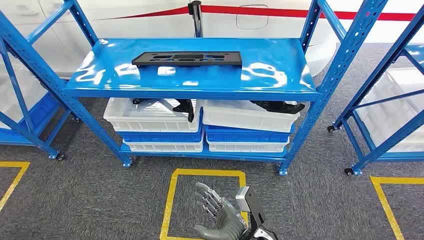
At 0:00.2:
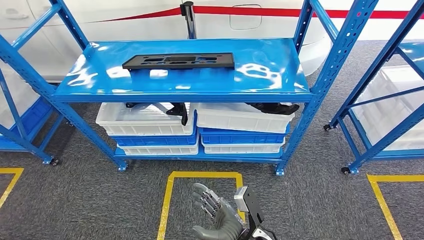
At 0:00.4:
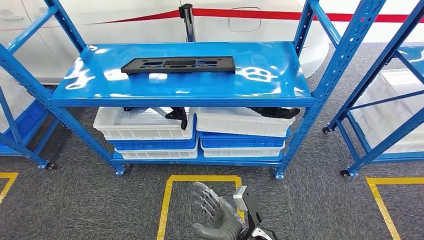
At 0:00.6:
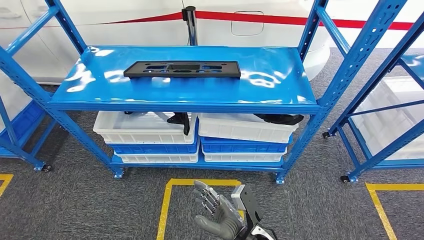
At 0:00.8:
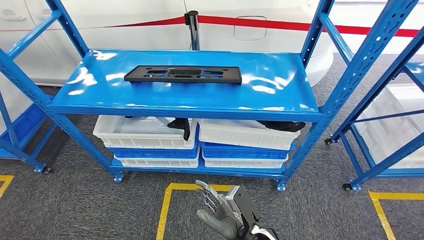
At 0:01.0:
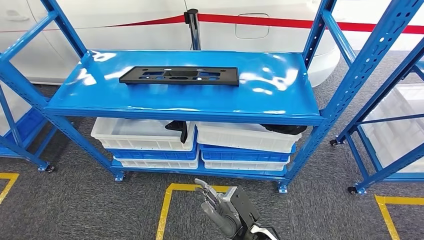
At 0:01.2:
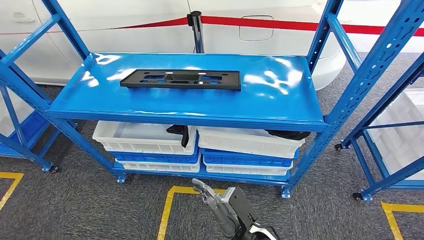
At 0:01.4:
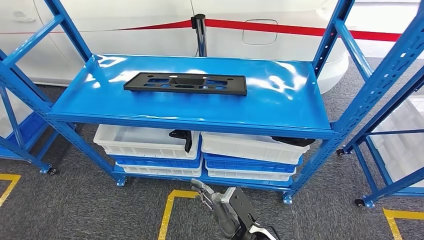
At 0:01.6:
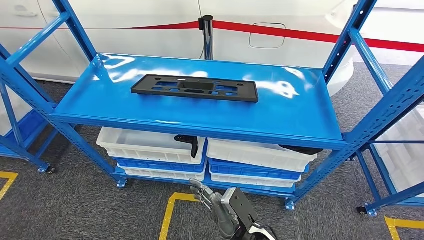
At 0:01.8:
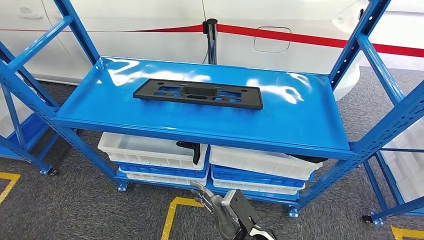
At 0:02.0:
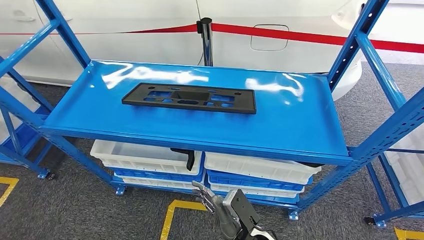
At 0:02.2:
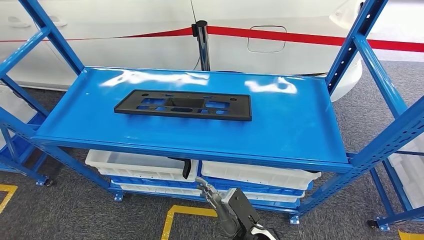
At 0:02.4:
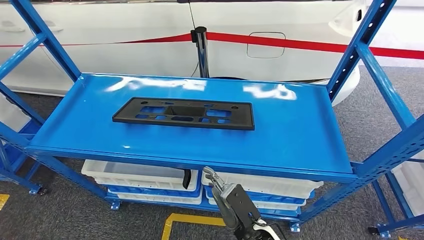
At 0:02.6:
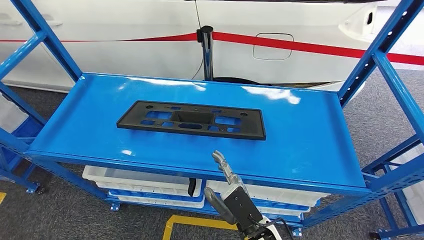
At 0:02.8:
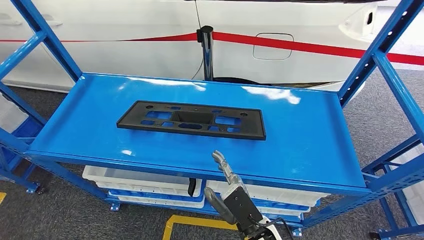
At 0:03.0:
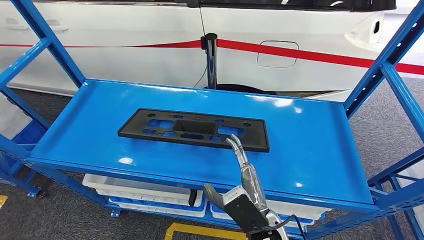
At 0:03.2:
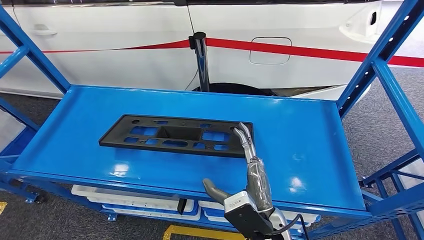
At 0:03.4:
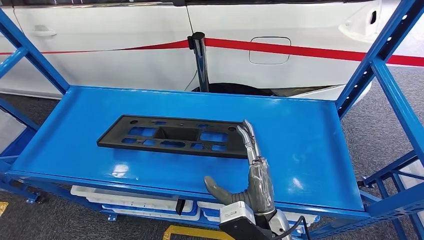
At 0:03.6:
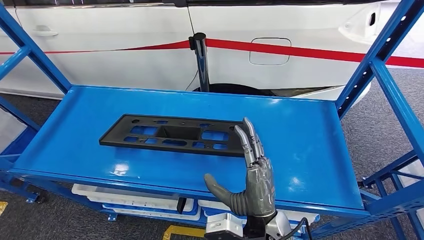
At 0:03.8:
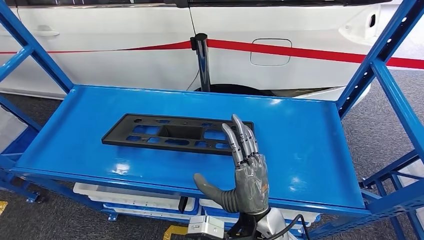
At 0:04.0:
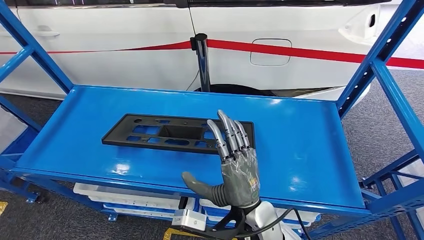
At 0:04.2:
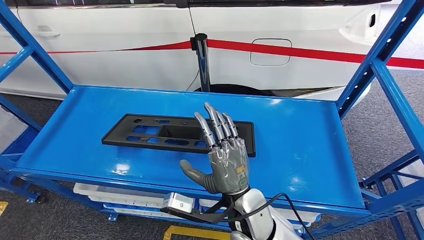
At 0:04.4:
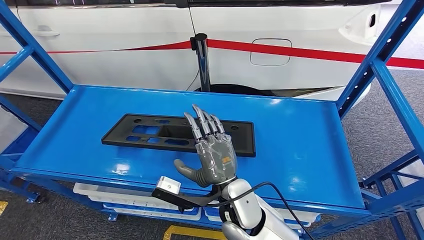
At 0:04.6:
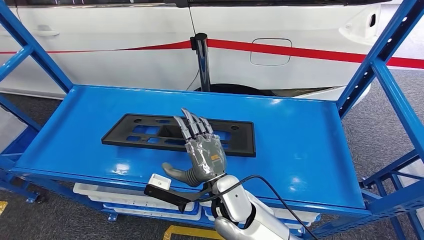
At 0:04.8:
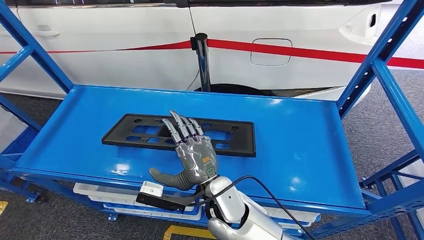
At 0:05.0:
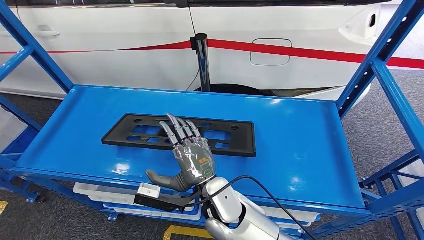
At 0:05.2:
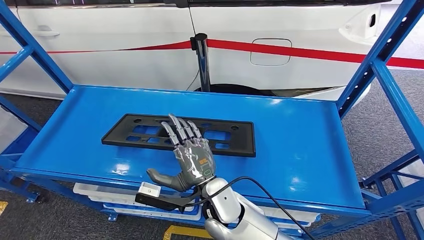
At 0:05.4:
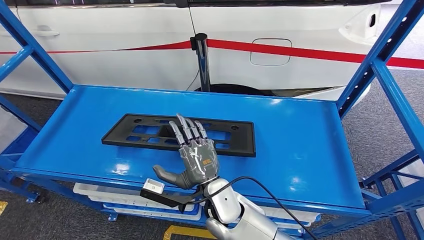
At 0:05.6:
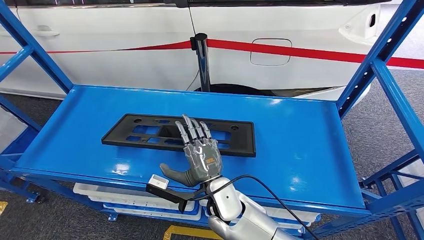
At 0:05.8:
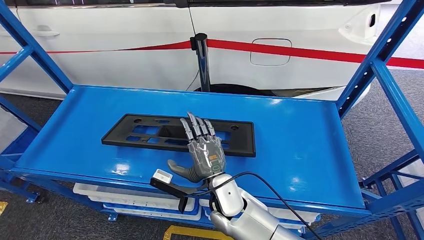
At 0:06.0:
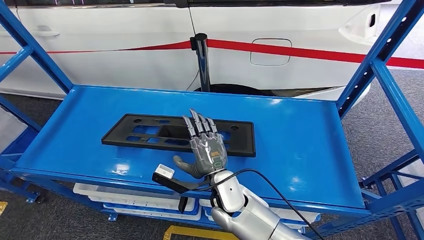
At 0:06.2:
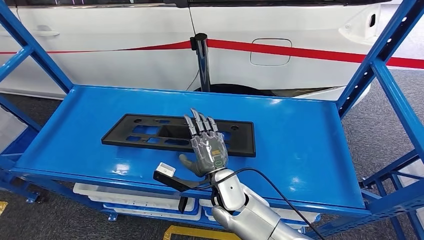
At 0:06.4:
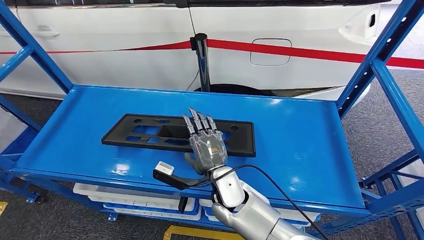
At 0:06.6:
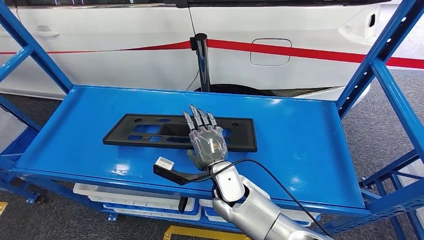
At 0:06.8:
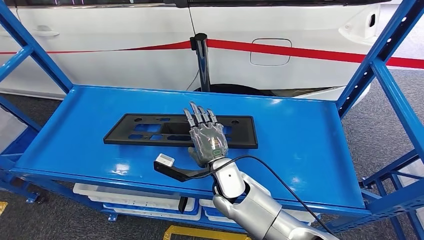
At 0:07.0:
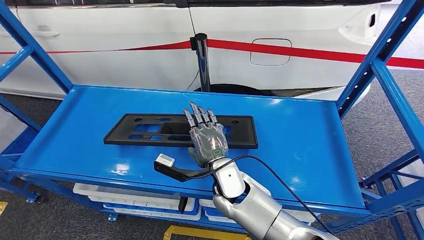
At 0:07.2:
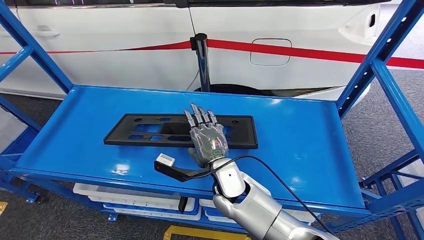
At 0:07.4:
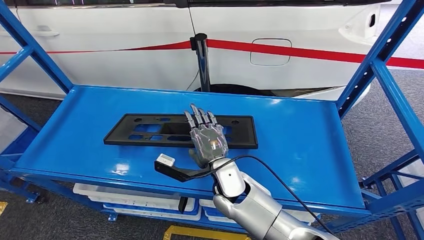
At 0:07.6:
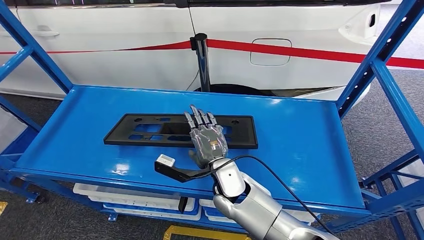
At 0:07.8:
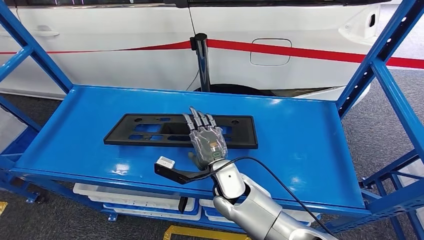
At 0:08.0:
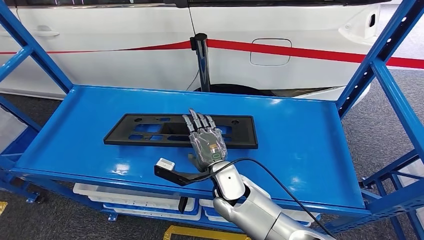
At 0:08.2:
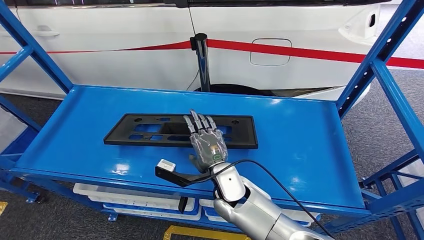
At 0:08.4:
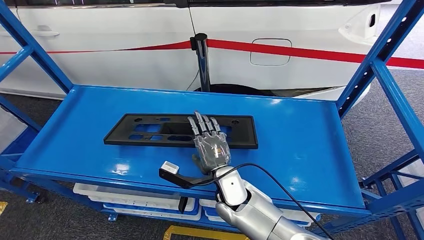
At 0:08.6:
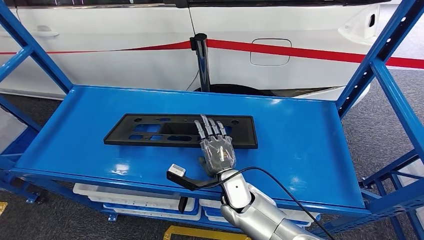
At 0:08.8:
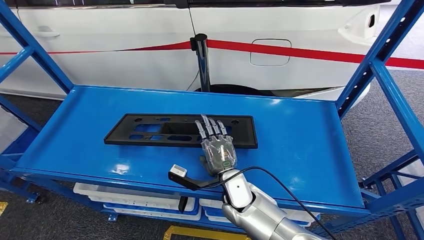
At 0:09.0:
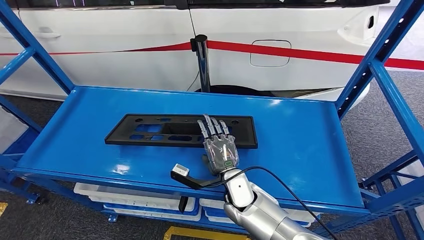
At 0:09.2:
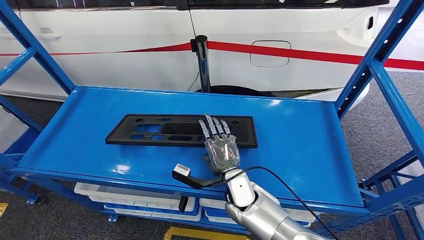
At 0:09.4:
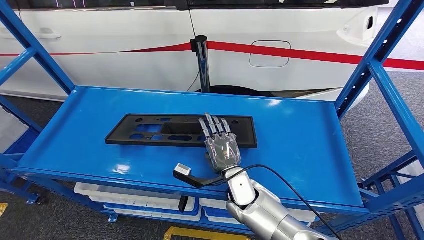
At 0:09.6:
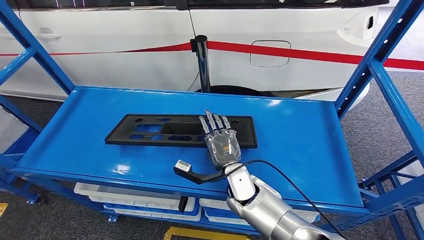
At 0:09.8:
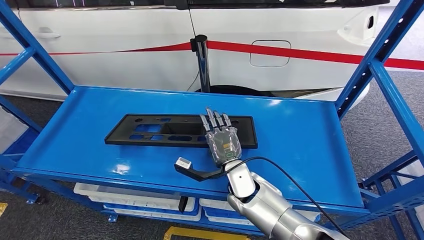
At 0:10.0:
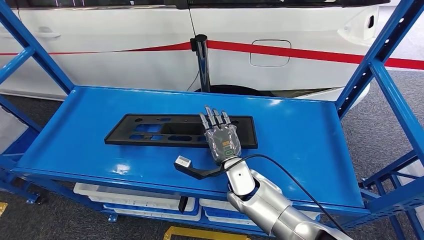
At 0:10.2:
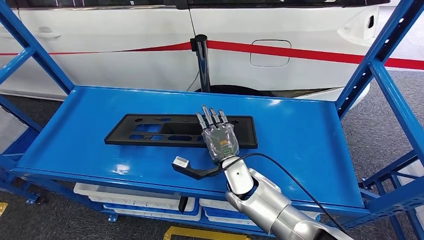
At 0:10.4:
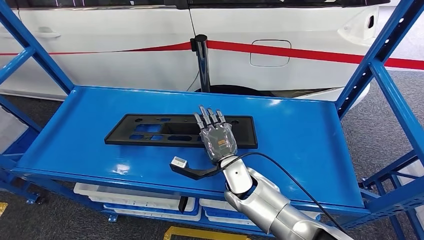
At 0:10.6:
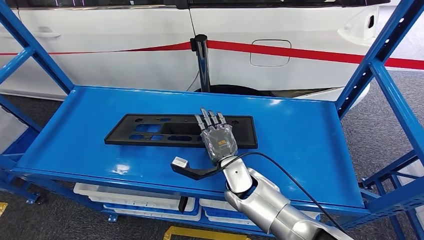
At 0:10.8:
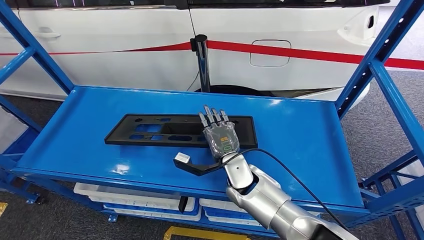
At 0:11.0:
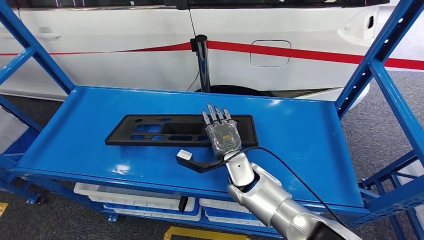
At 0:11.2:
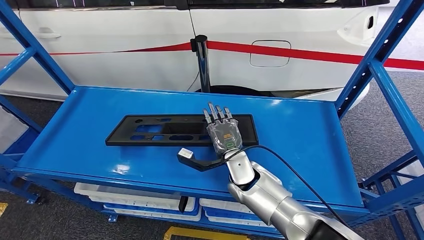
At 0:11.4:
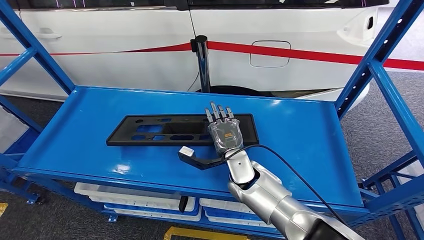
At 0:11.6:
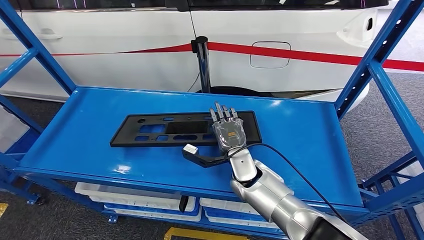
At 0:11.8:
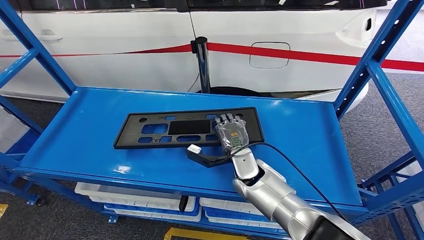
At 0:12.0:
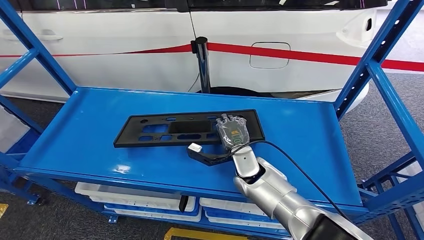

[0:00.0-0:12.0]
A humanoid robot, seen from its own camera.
0:04.4 to 0:06.0: The right hand changes place by some 5 cm.
0:06.0 to 0:07.6: The hands stay close to where they were, moving slightly.
0:07.6 to 0:09.0: The right hand moves downward, roughly 5 cm.
0:09.0 to 0:10.4: The hands make only small movements.

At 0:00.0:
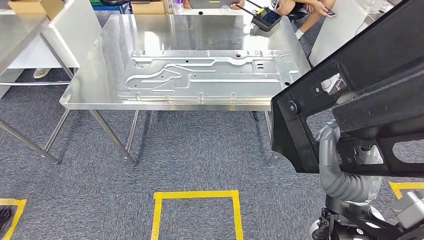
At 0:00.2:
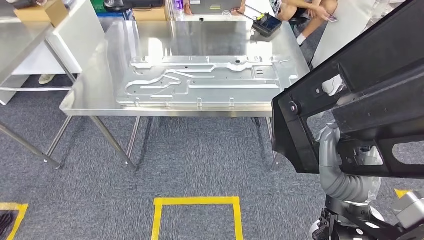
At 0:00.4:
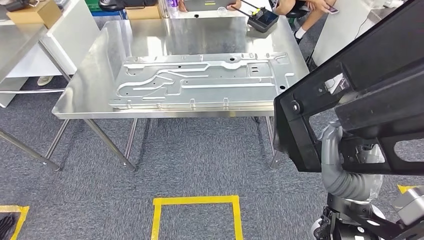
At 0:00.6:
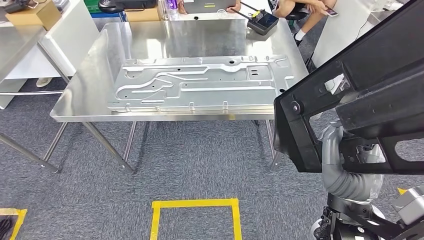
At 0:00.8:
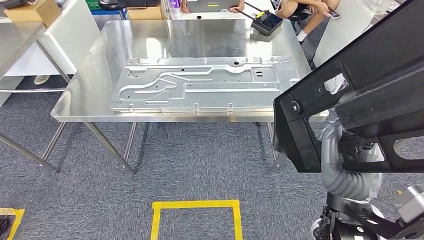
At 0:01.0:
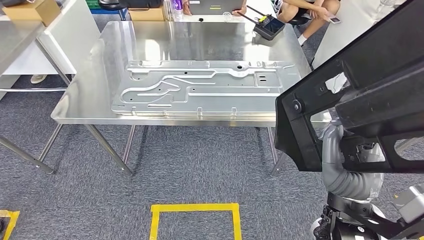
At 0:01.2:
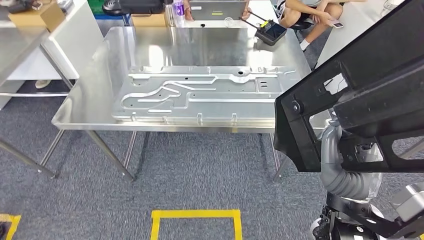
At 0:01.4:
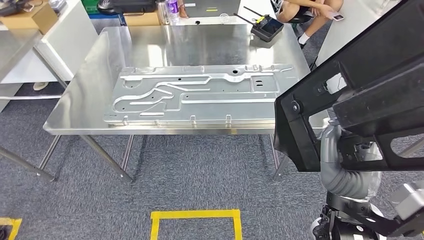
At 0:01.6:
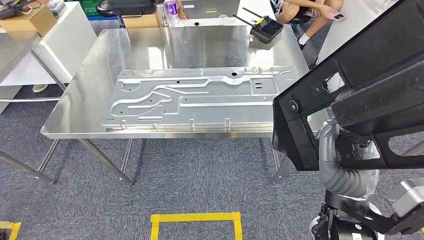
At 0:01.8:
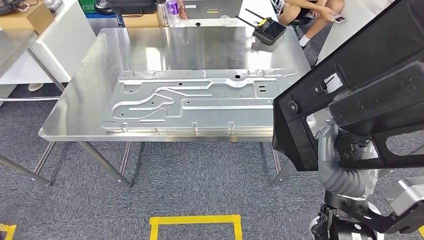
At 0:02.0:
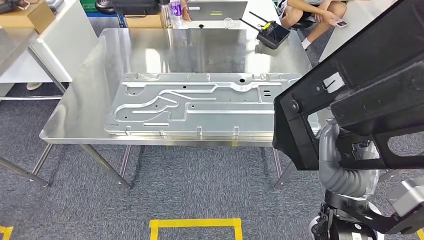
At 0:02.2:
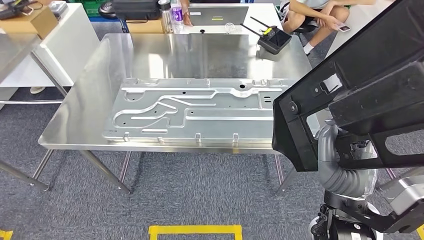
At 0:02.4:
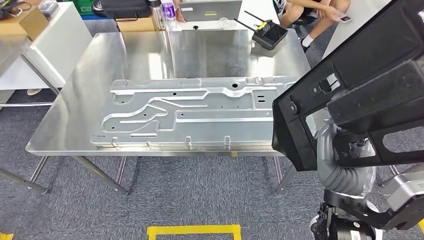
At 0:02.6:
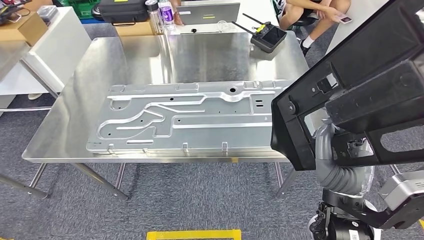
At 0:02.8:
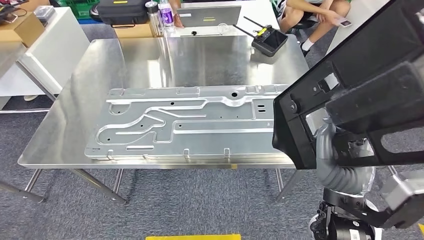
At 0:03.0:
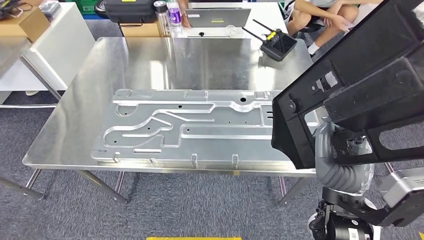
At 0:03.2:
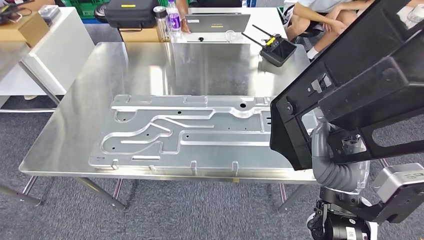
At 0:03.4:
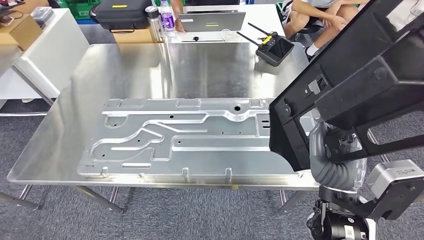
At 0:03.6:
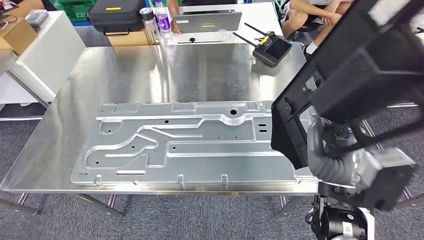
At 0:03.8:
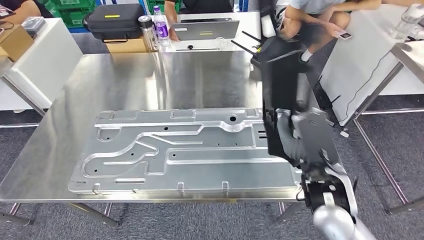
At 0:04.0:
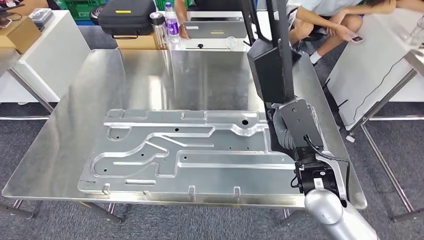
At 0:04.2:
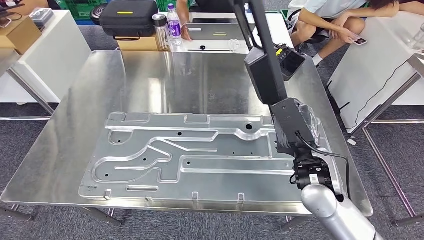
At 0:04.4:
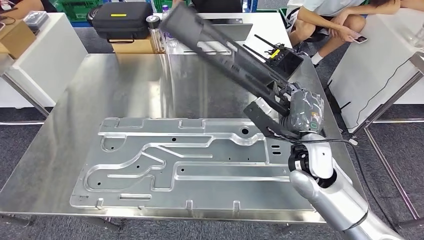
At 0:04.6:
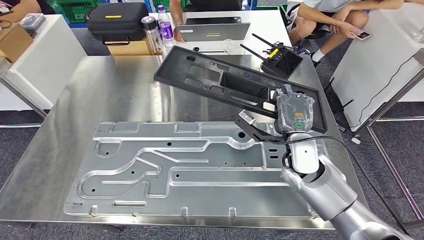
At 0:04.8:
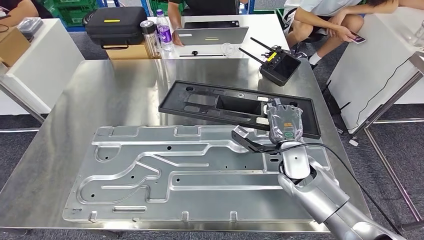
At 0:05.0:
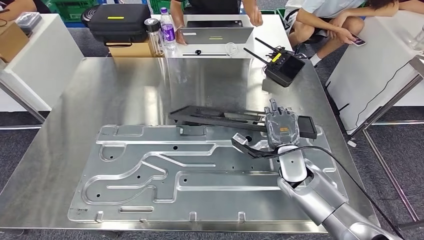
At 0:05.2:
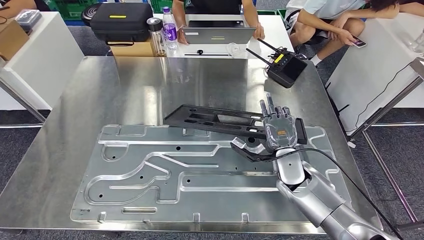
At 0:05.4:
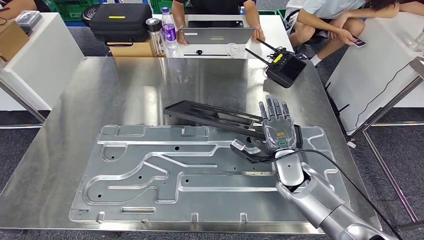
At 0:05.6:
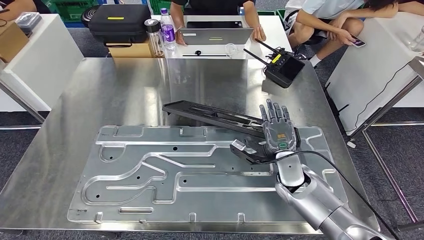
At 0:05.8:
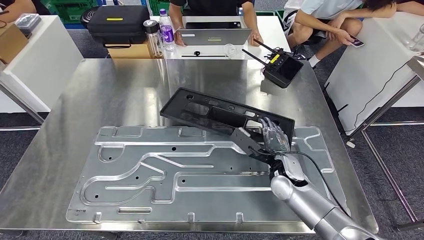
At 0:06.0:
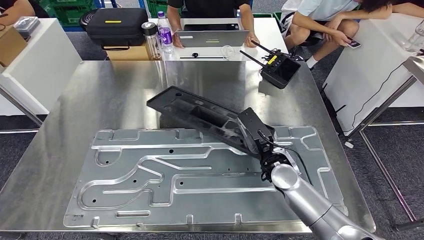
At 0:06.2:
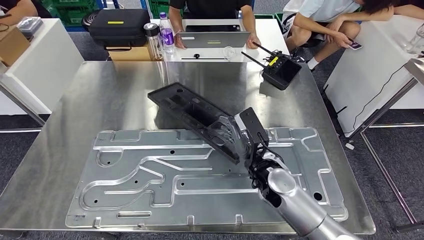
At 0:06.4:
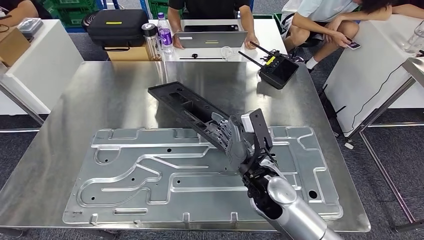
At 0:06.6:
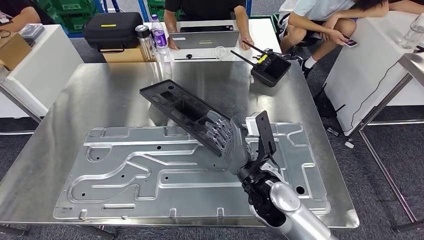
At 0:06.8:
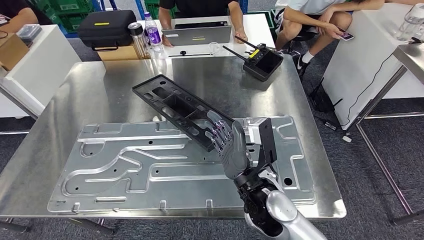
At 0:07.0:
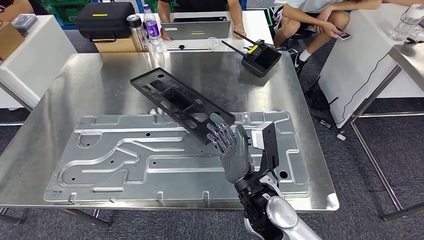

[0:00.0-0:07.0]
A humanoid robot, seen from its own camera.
Step, 0:00.0 to 0:02.6: Move the large material to the workbench.
